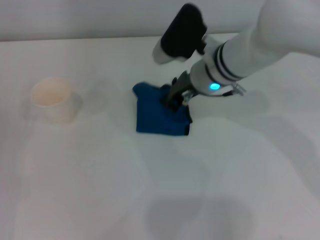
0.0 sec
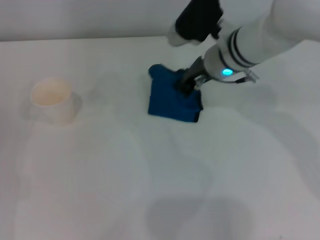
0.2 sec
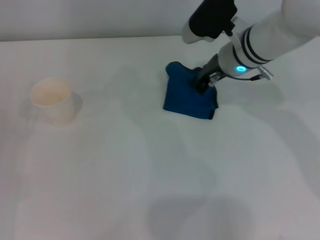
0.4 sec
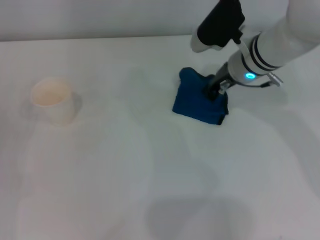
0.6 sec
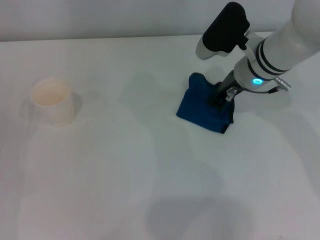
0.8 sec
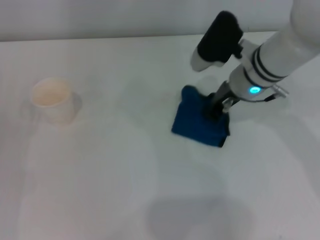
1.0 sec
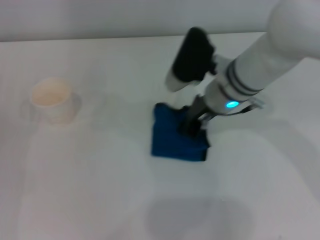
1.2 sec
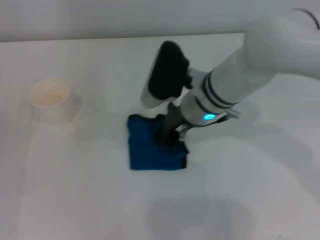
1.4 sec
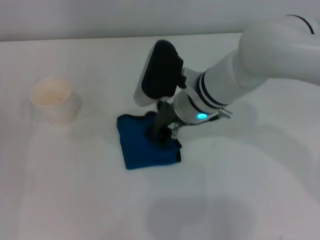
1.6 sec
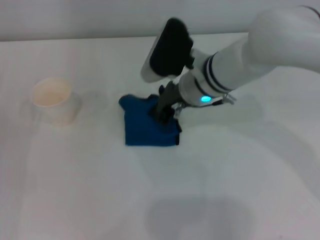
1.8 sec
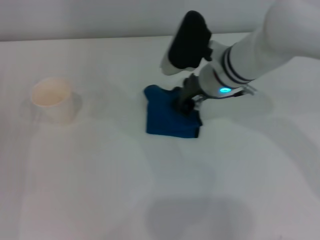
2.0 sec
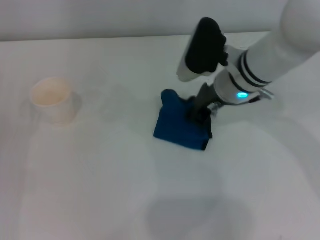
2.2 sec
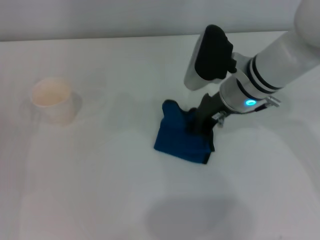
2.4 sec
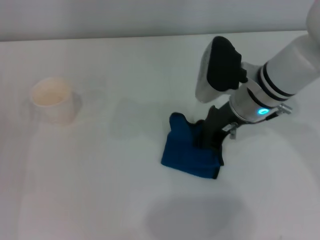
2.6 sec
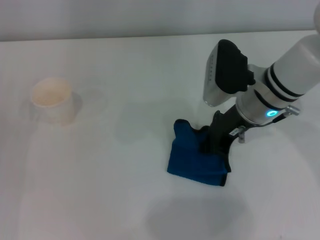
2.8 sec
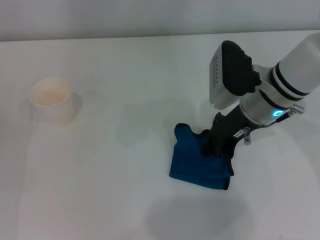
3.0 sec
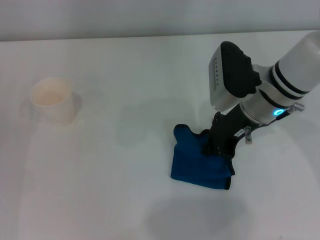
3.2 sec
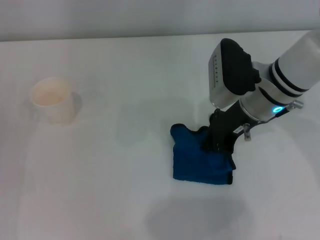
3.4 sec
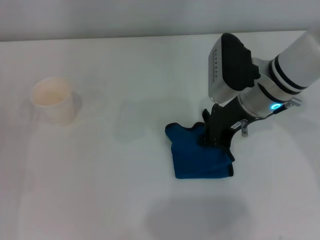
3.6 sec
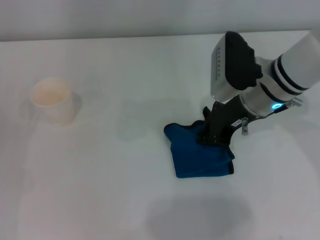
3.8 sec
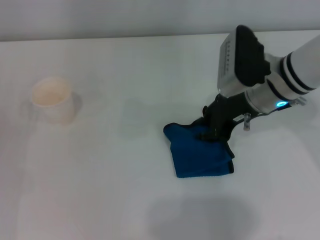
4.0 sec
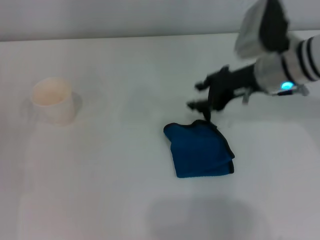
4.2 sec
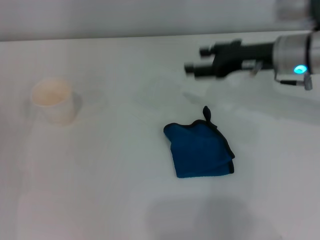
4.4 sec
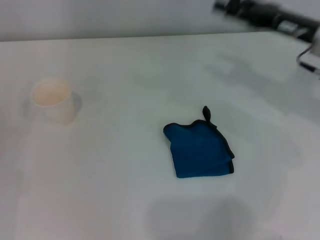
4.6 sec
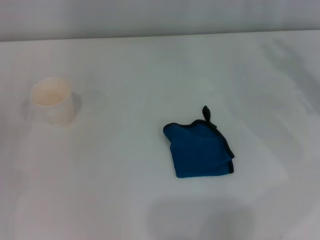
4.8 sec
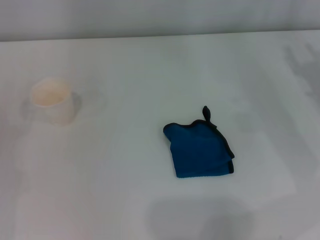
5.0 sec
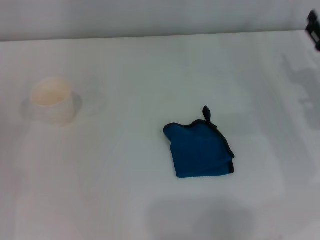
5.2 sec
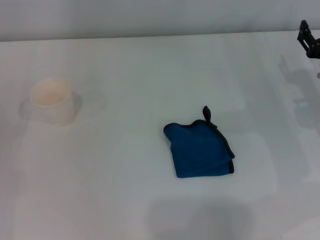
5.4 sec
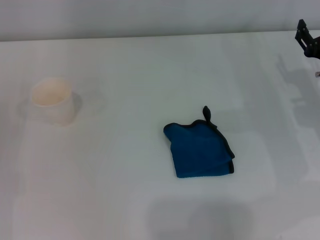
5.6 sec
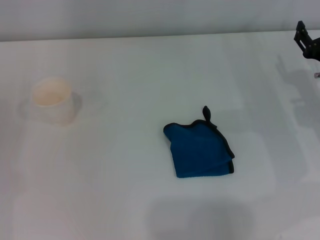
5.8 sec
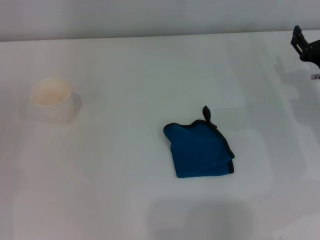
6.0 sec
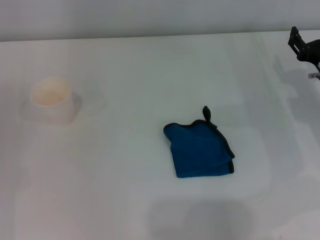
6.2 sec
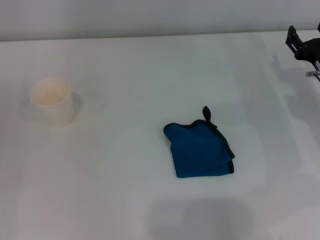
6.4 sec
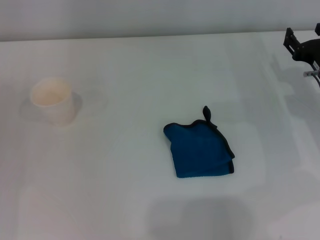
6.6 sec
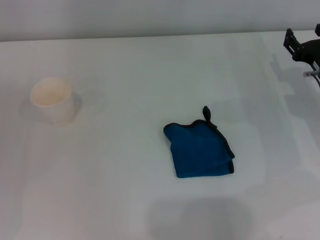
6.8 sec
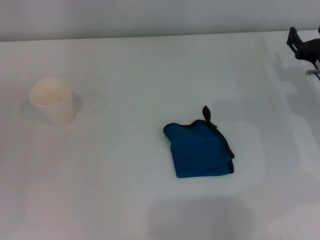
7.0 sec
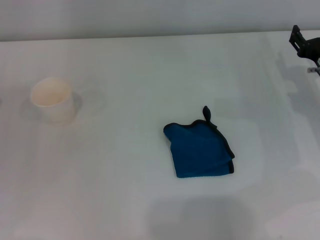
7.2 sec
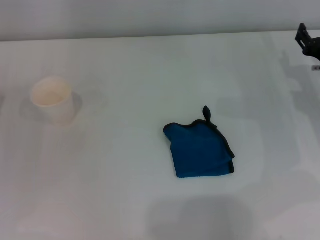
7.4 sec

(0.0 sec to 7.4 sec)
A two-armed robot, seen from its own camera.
Step, 0.0 sec - 3.2 sec: Wipe the stains off the table with the right gripper.
Step, 3.4 sec - 3.6 sec: Place the rag on the table with the right gripper.
0.0 sec - 1.4 sec: The right gripper moves roughly 5 cm to the right and comes back.
1.4 sec - 3.0 sec: The right gripper is displaced to the right by approximately 10 cm.
3.0 sec - 4.4 sec: The right gripper heads to the right, covering some 5 cm, and opens up.
4.4 sec - 6.0 sec: The right gripper shifts approximately 10 cm downward and to the right, and opens.

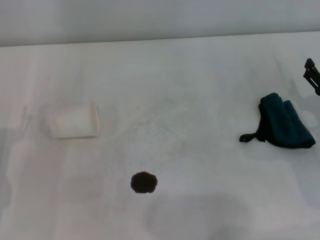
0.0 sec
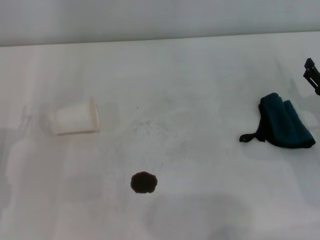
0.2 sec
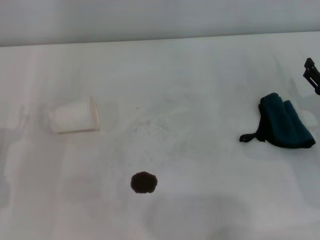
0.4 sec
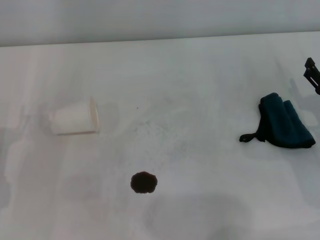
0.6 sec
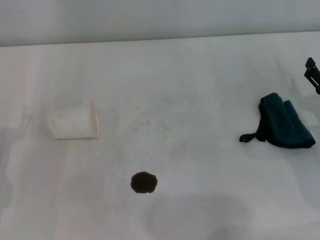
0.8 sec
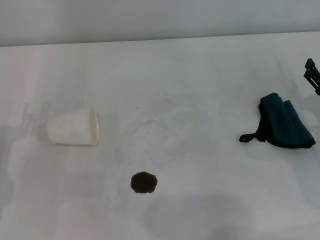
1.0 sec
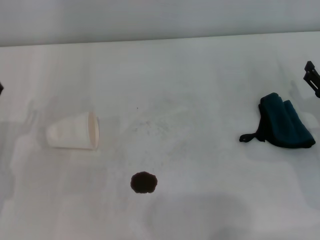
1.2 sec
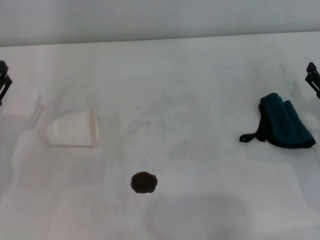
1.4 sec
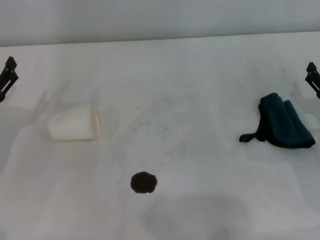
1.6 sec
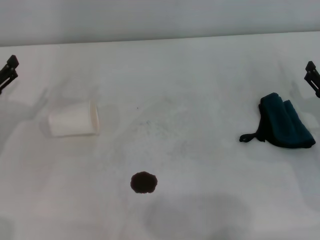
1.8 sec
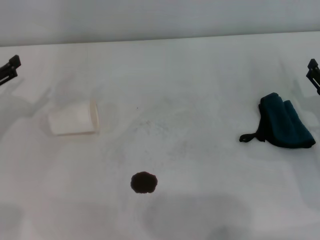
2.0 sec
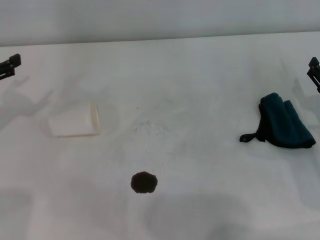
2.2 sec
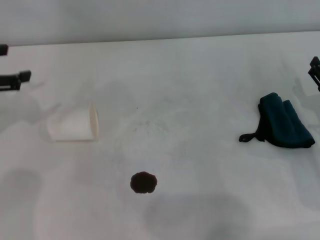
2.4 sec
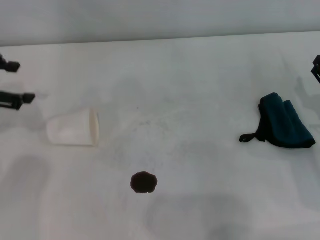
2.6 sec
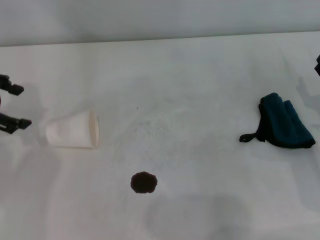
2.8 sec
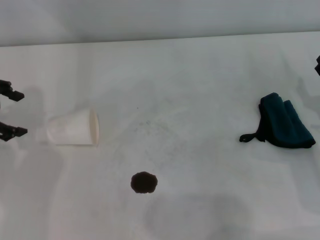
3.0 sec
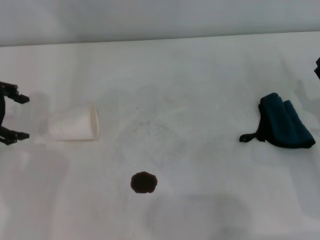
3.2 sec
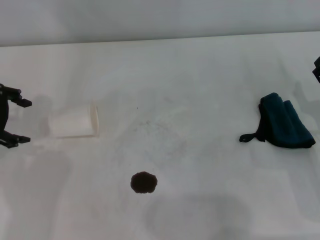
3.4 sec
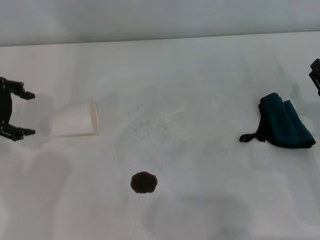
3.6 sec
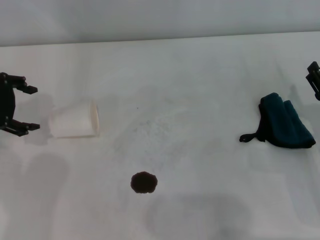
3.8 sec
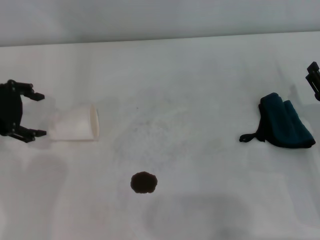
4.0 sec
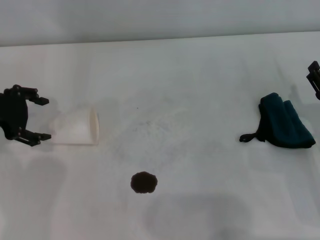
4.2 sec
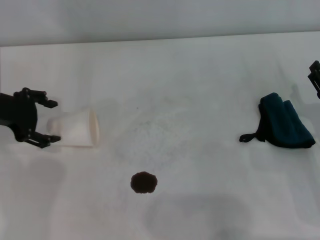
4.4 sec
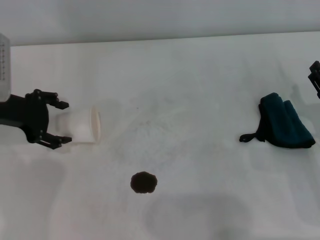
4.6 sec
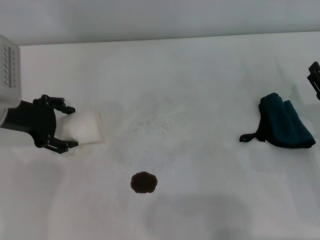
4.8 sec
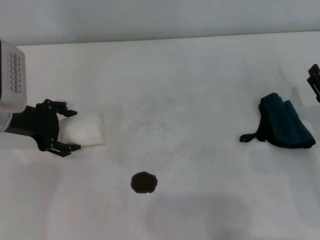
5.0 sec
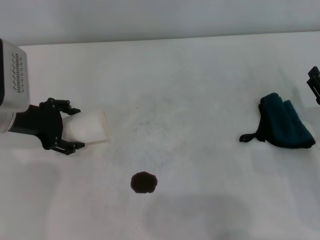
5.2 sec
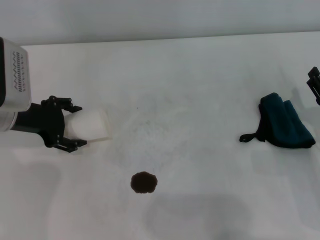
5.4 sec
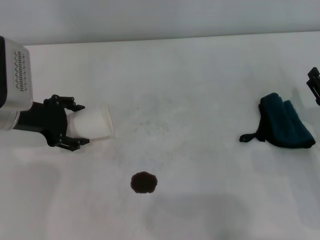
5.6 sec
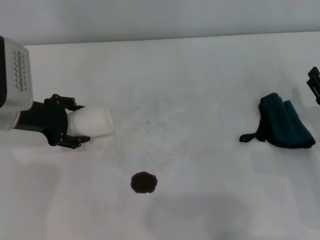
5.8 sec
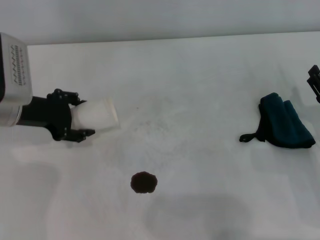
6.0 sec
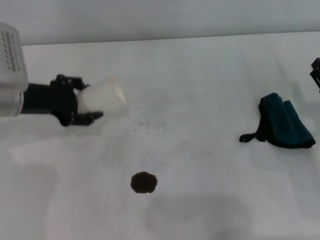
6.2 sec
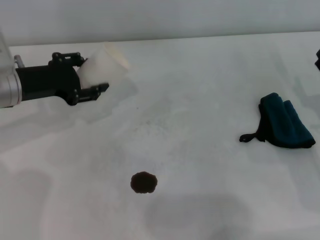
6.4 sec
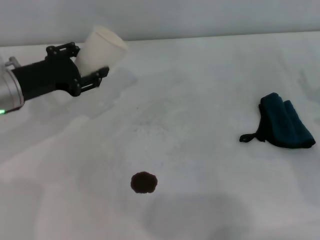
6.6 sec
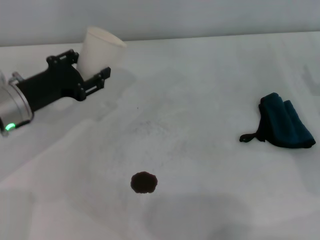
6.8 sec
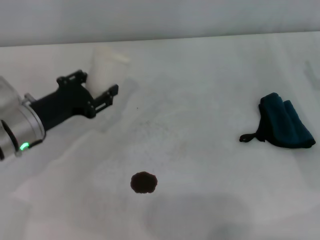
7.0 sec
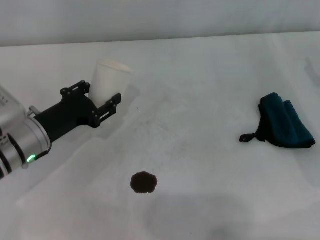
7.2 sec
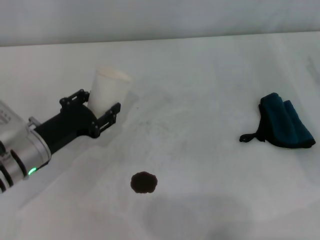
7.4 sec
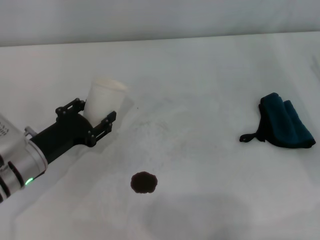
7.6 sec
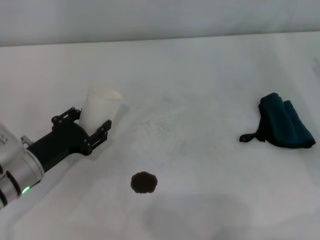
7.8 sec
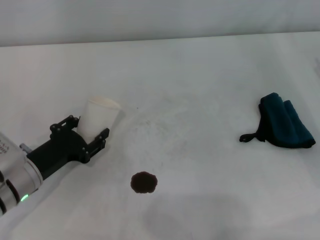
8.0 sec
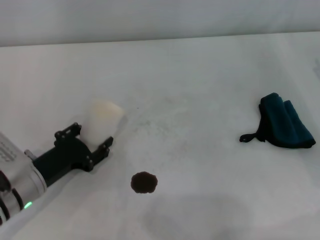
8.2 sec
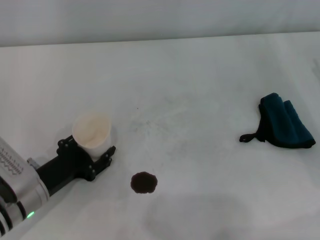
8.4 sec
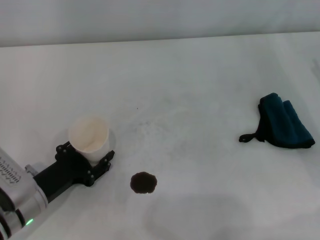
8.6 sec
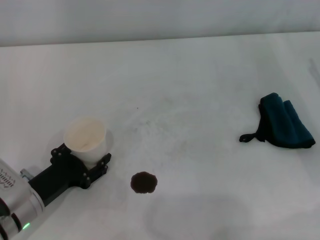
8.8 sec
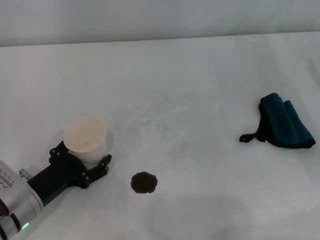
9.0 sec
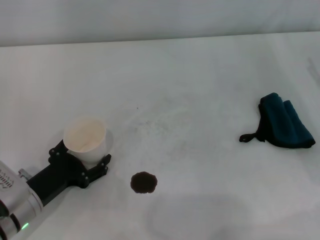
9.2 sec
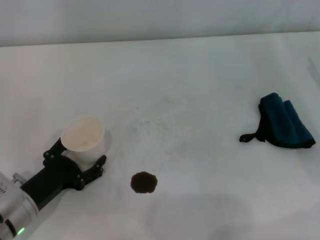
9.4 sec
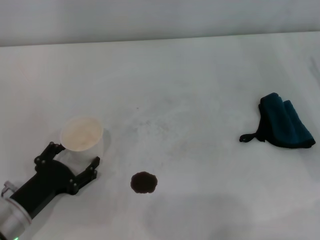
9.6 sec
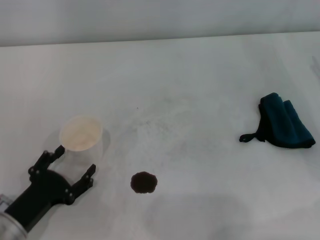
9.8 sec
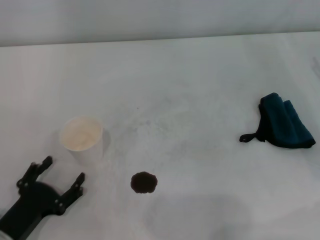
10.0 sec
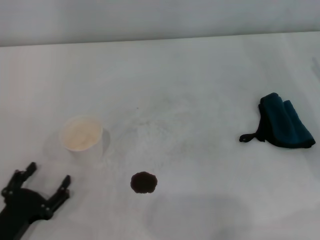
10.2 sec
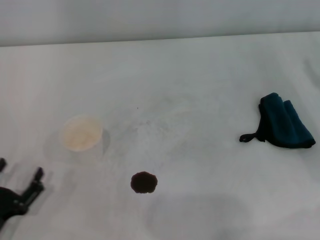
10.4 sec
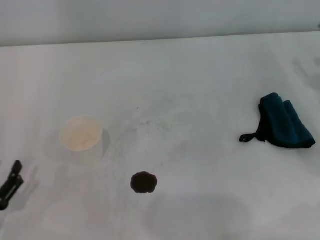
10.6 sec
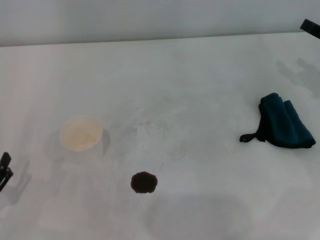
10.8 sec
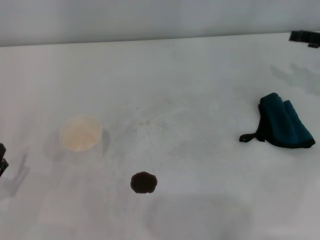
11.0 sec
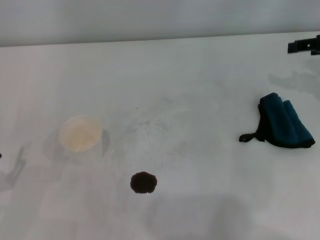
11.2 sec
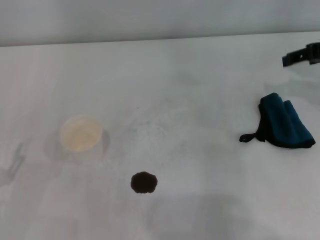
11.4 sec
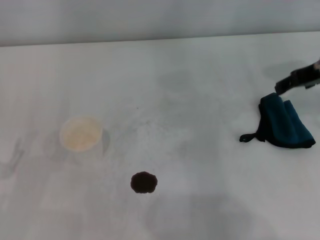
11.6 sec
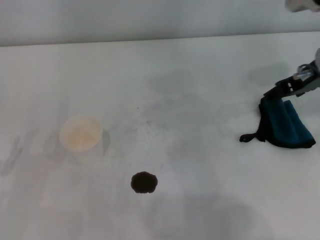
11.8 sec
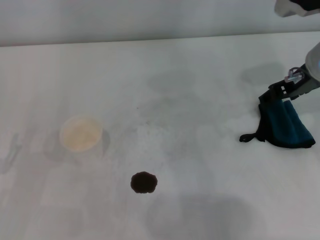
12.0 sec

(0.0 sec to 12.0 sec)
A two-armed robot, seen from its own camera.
Step, 0.0 sec - 4.8 sec: Grasp the paper cup with the left gripper.
Step, 5.0 sec - 9.4 sec: Stand the paper cup upright with the left gripper.
0.0 sec - 1.6 sec: The left gripper goes roughly 5 cm forward.
1.6 sec - 3.0 sec: The left gripper heads upward and forward, covering approximately 15 cm.
3.0 sec - 4.4 sec: The left gripper moves downward, roughly 5 cm.
4.4 sec - 6.0 sec: The grippers make only small movements.
6.0 sec - 7.6 sec: The left gripper is displaced backward and downward by roughly 10 cm, and closes up, while the right gripper travels to the right and upward by approximately 10 cm.
7.6 sec - 9.0 sec: The left gripper moves backward, about 5 cm, and opens its fingers.
9.0 sec - 10.4 sec: The left gripper moves backward and to the left, approximately 10 cm, and opens its fingers.
10.4 sec - 12.0 sec: The left gripper moves roughly 5 cm, while the right gripper moves to the left, upward and forward, some 20 cm.

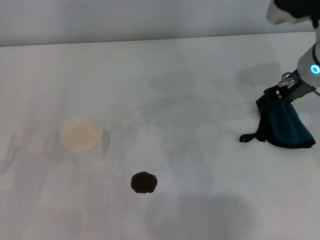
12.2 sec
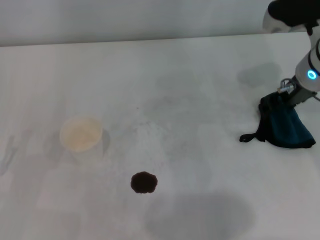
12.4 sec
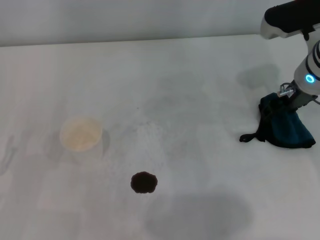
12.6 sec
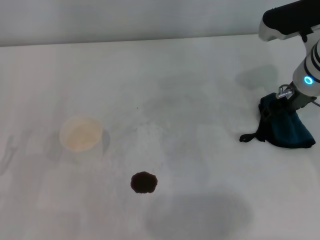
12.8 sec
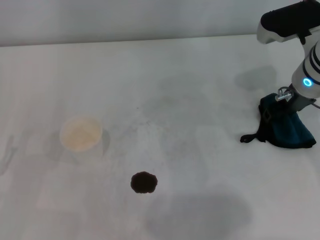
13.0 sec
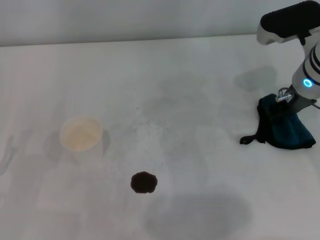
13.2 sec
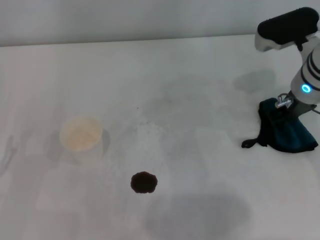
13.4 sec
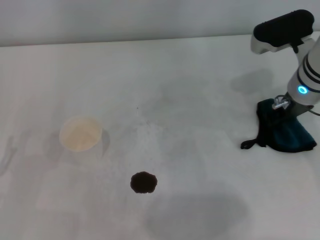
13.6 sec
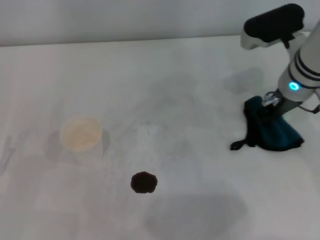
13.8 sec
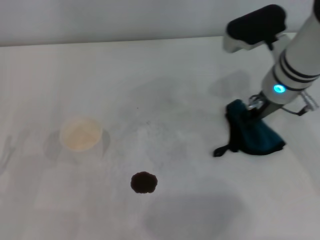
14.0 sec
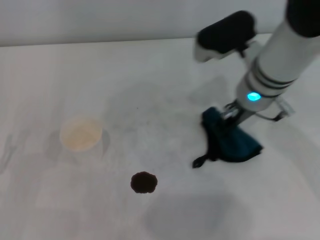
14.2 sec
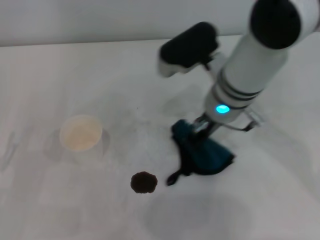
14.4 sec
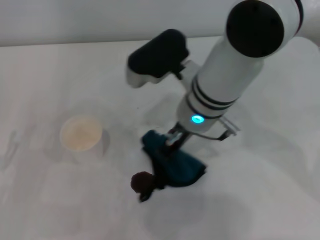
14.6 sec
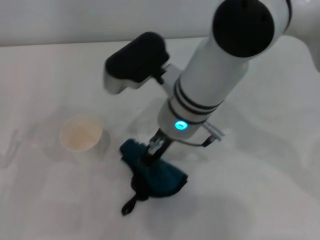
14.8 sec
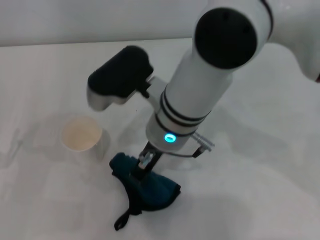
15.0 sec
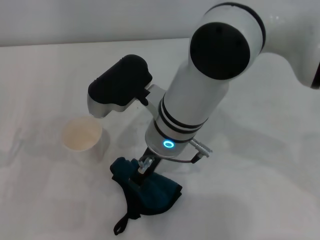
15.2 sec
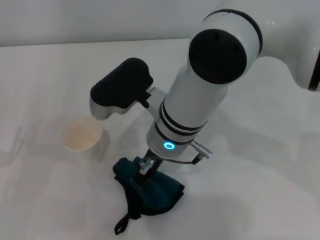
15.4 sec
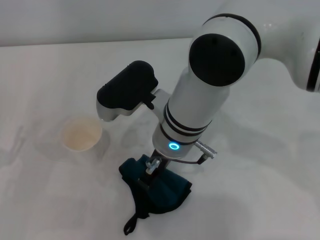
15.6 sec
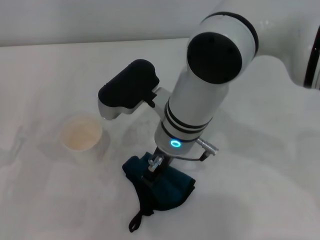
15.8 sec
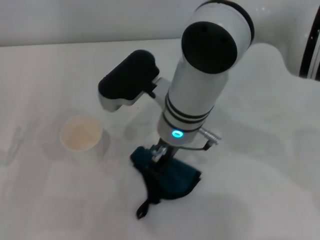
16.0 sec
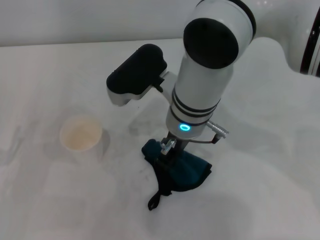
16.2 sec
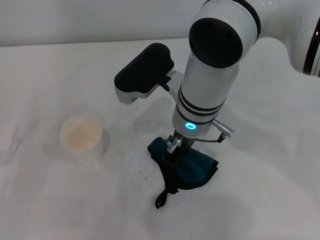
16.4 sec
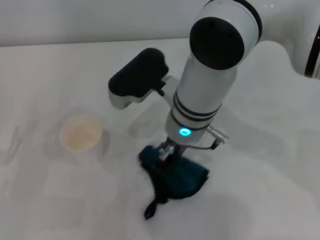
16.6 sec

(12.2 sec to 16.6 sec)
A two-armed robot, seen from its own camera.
12.2 sec - 13.6 sec: The right gripper closes.
13.6 sec - 15.2 sec: The right gripper heads to the left, covering roughly 20 cm.
15.2 sec - 16.6 sec: The grippers make only small movements.
